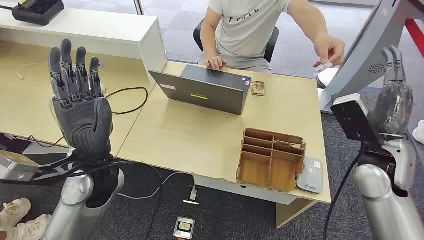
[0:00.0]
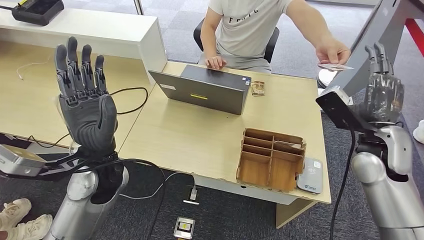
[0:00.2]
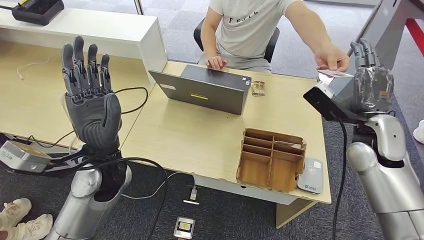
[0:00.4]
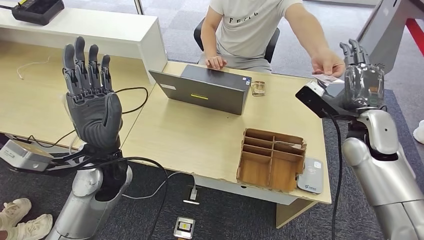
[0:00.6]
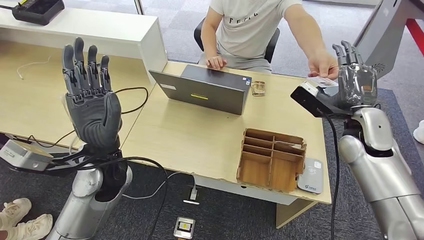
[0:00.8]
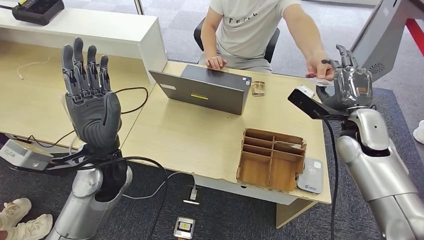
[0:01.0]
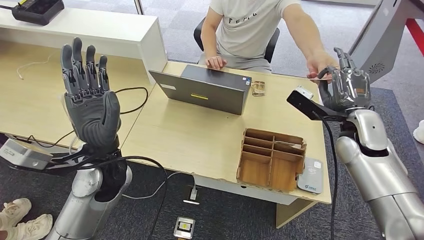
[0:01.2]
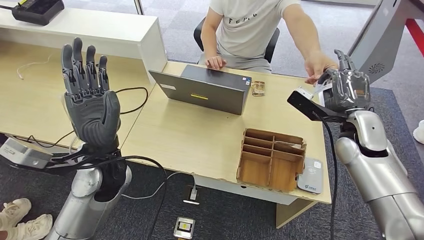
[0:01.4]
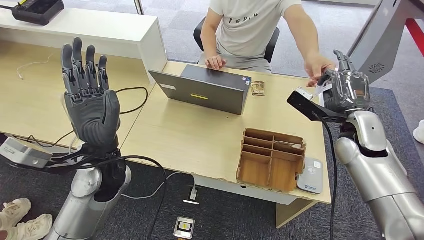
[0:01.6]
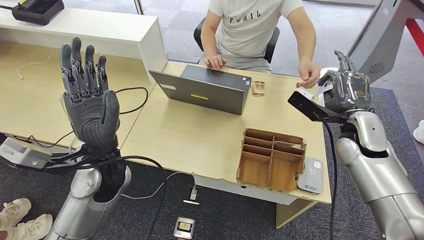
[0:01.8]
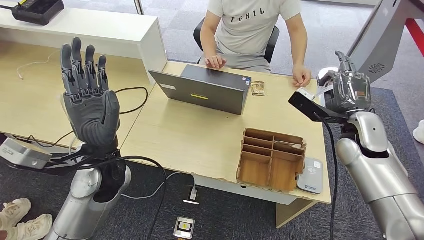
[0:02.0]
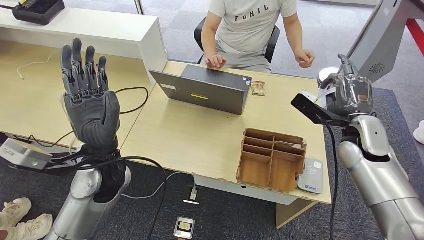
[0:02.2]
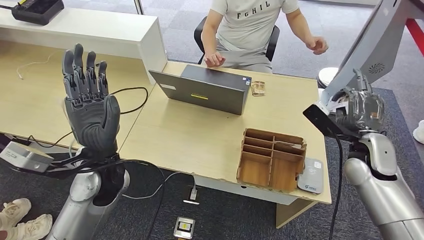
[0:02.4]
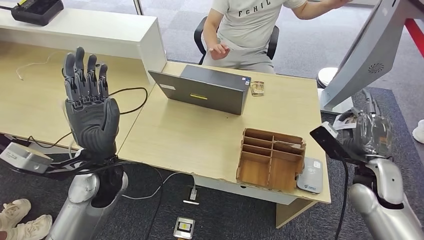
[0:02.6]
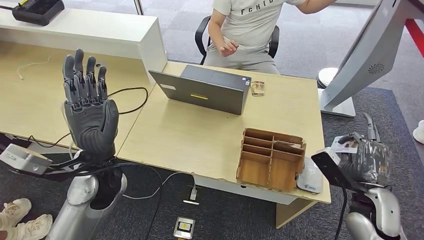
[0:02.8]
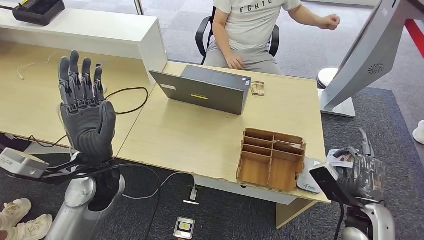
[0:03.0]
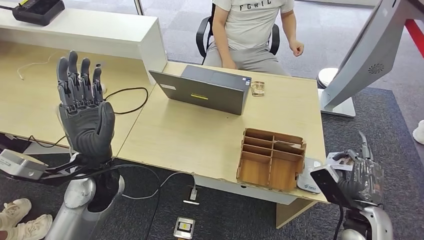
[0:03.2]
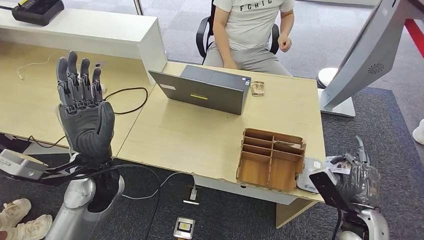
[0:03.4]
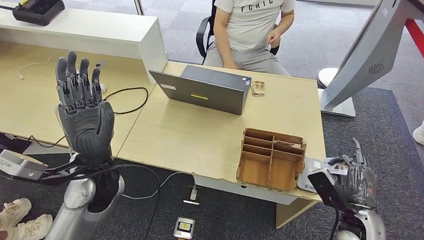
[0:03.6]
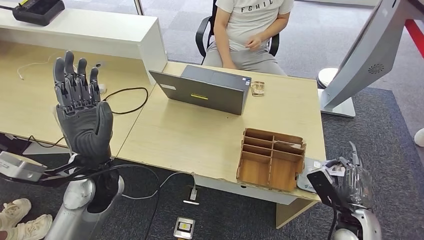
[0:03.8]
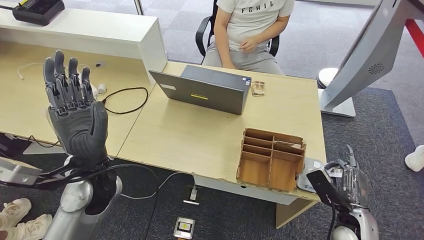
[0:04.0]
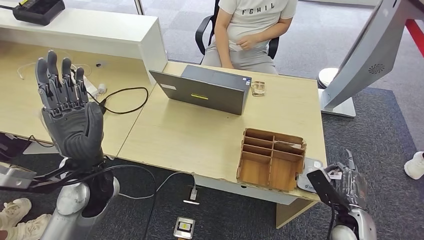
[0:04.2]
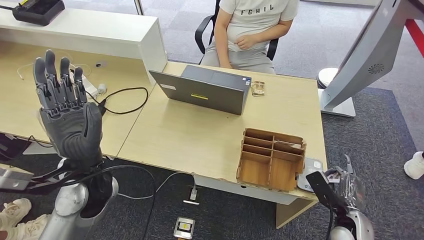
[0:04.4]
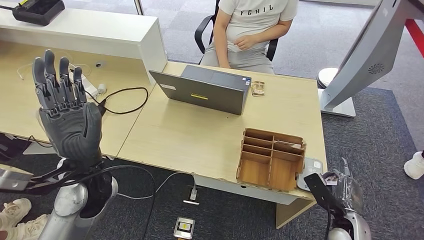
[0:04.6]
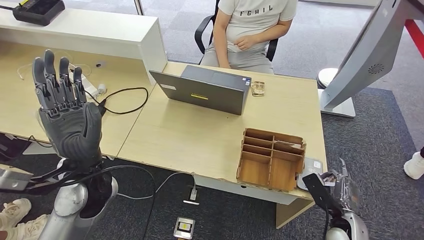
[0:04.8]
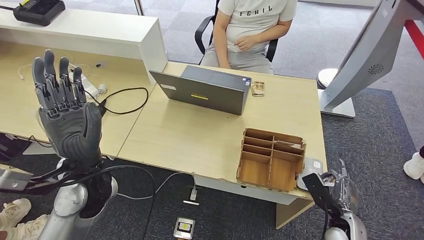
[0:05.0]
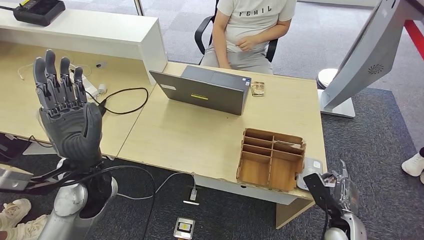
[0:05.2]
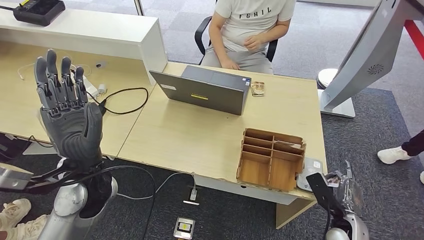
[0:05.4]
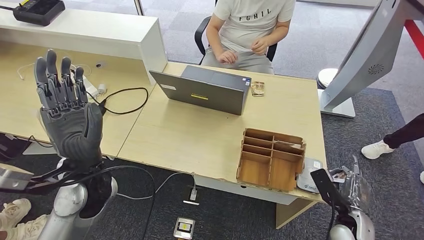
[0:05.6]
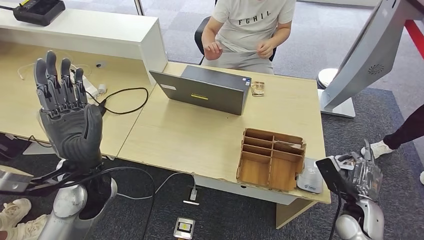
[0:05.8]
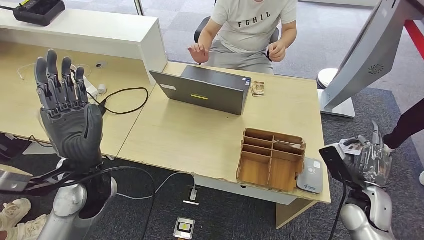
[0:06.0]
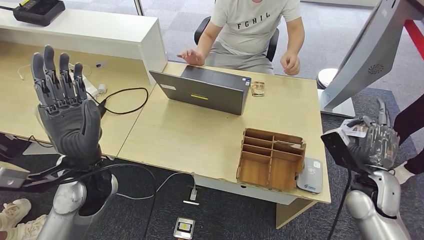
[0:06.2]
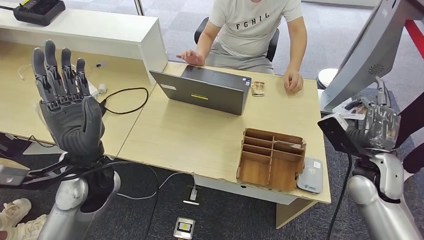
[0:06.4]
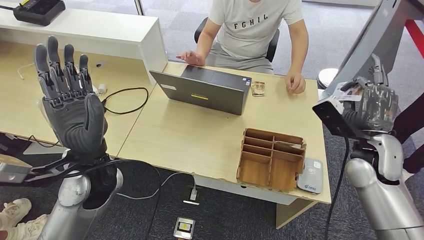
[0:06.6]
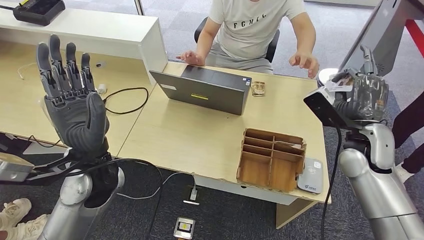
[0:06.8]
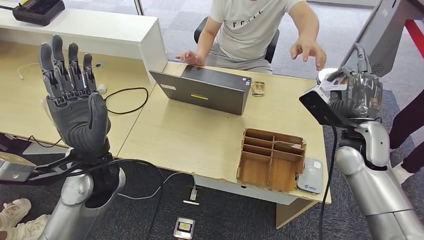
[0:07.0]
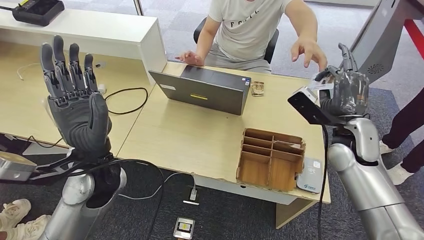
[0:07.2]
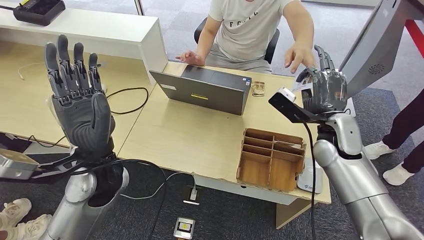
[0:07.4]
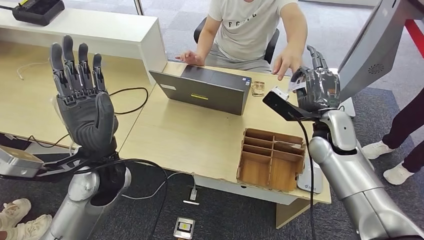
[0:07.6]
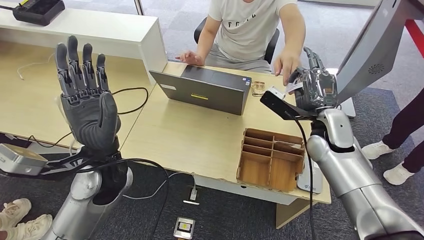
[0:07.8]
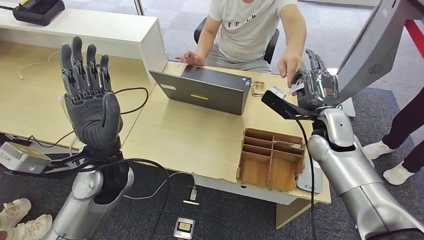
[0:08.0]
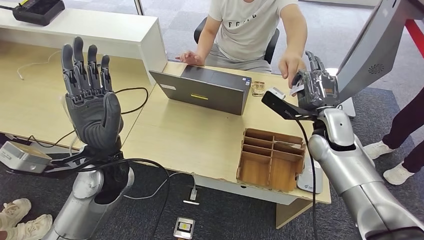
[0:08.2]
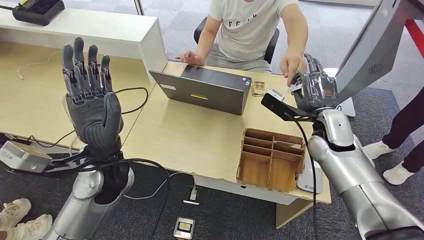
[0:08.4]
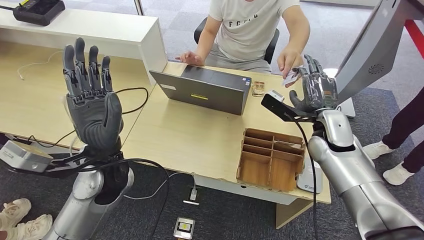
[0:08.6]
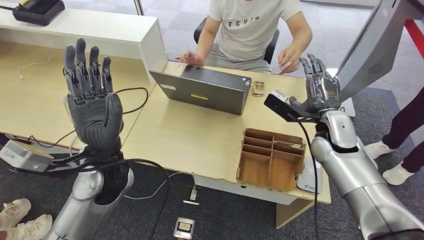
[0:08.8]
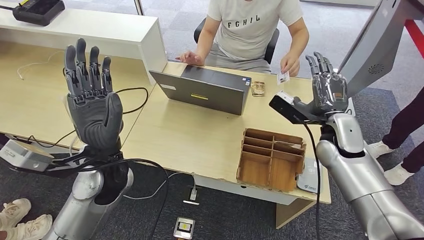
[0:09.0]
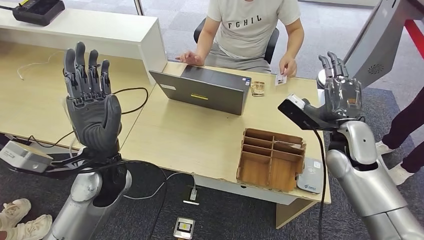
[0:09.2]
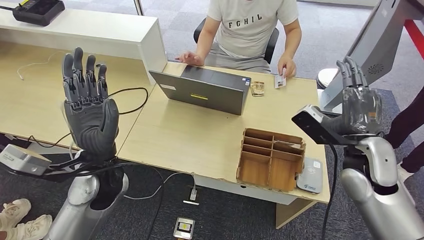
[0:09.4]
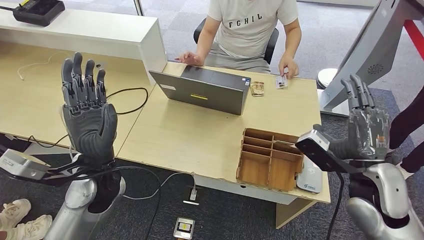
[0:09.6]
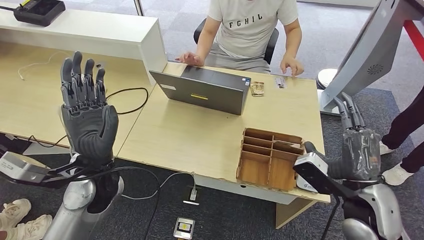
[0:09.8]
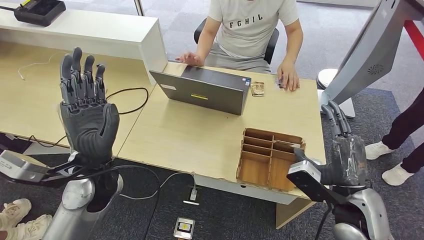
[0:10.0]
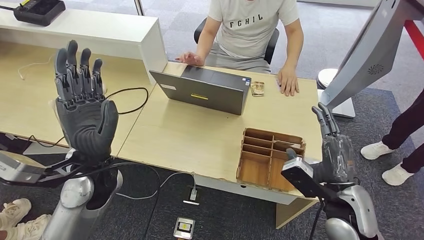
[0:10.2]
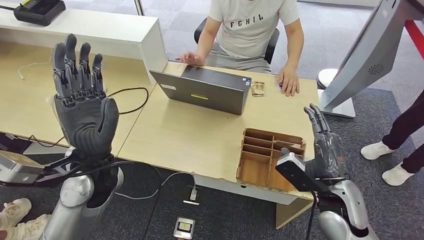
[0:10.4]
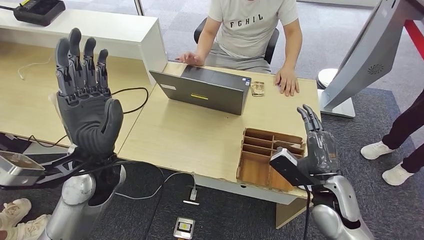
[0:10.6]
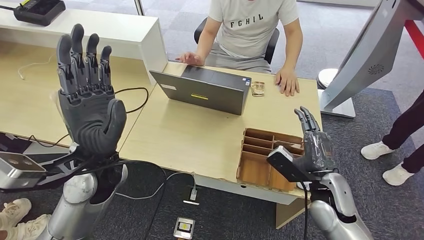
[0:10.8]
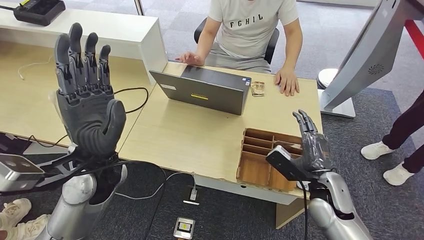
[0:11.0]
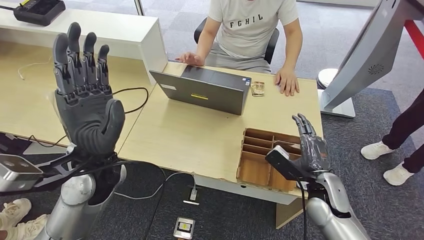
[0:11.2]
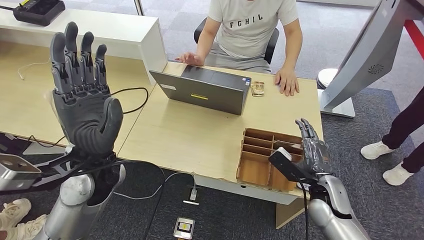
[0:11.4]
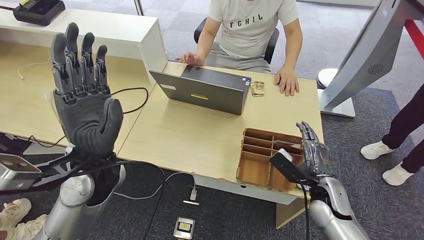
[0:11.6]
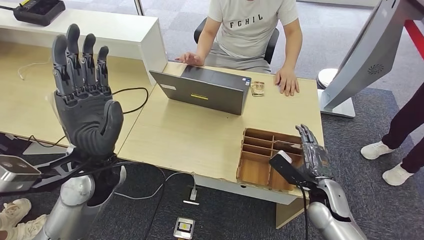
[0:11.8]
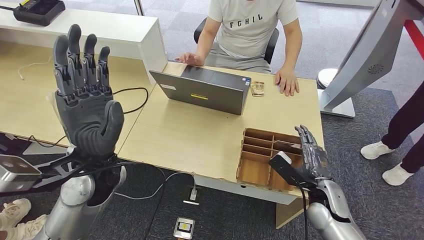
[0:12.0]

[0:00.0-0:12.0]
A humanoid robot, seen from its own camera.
Step, 0:00.0 to 0:02.8: Take the ID card from the person's hand.
Step, 0:03.0 to 0:06.0: Place the ID card on the card reader.
Step, 0:06.2 to 0:09.4: Hand the ID card to the person.
0:03.0 to 0:04.4: The right hand goes about 10 cm downward.
0:04.4 to 0:06.0: The right hand is displaced upward by some 10 cm.
0:07.6 to 0:09.0: The hands stay close to where they were, moving slightly.
0:10.4 to 0:12.0: The right hand heads downward, covering about 10 cm.

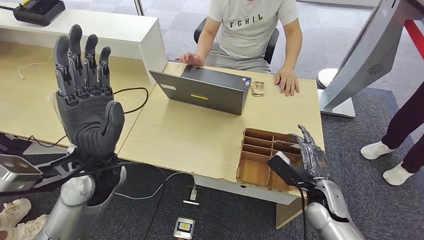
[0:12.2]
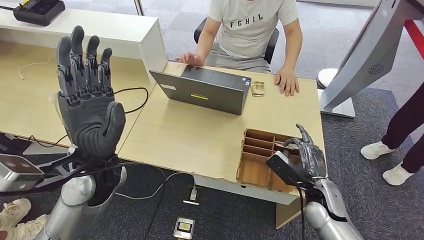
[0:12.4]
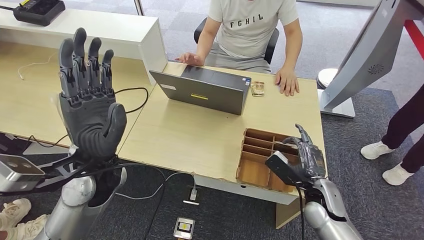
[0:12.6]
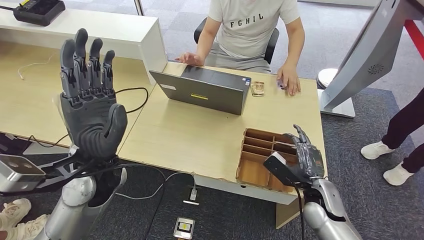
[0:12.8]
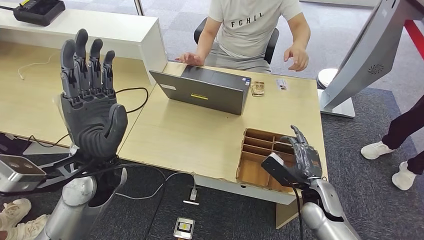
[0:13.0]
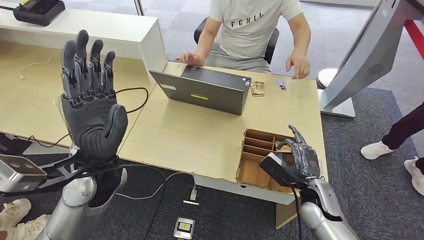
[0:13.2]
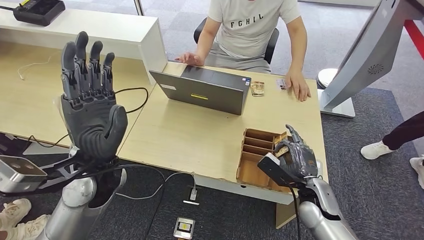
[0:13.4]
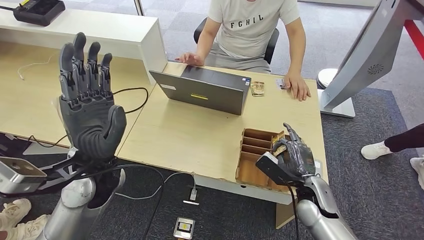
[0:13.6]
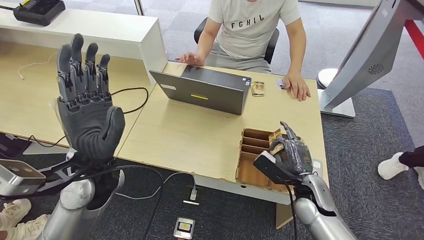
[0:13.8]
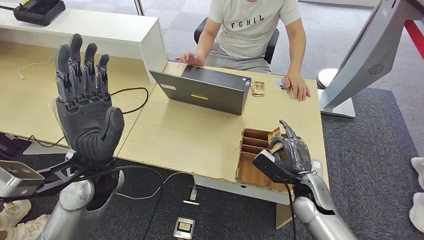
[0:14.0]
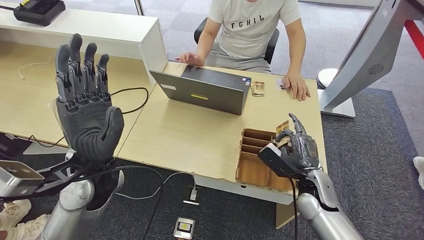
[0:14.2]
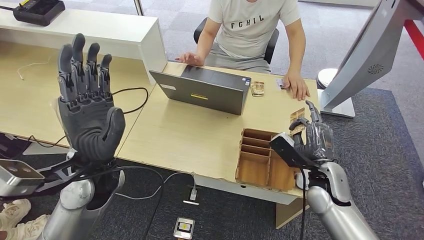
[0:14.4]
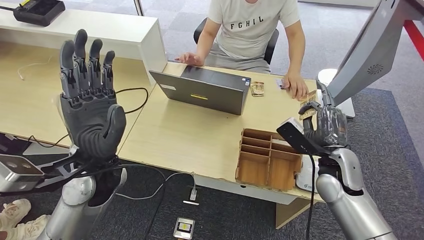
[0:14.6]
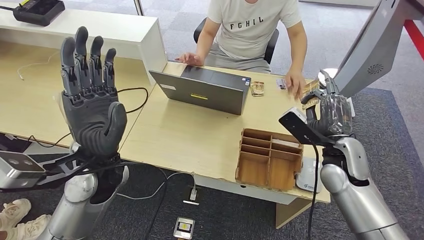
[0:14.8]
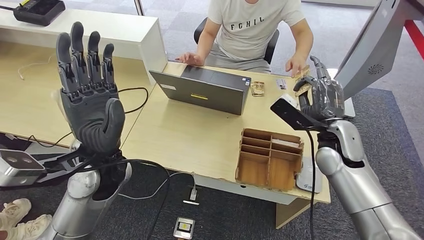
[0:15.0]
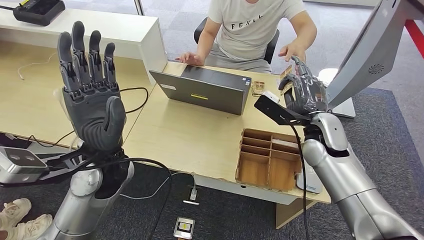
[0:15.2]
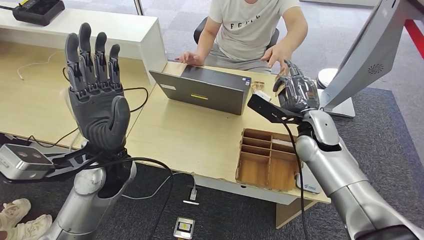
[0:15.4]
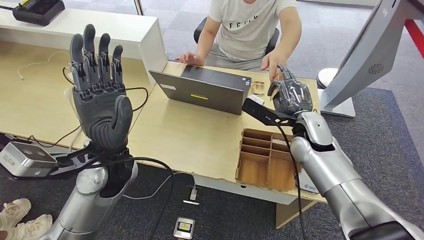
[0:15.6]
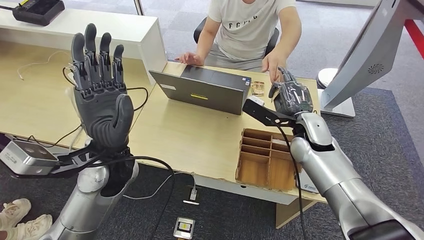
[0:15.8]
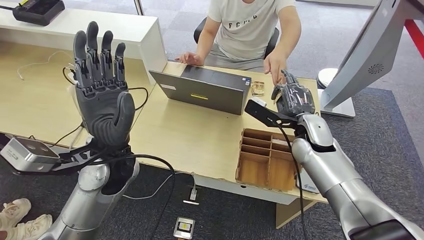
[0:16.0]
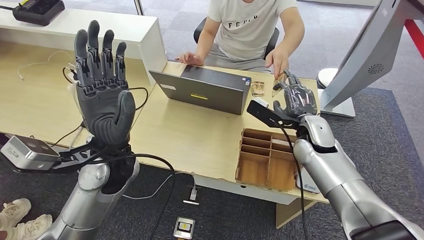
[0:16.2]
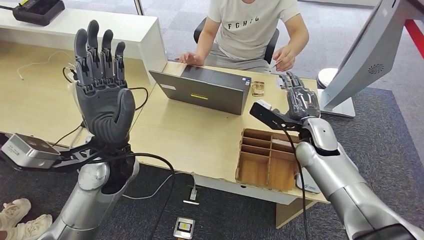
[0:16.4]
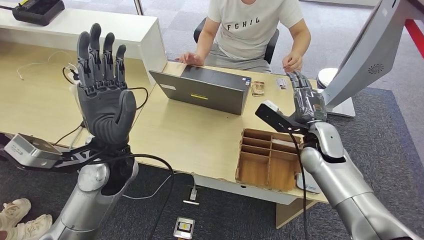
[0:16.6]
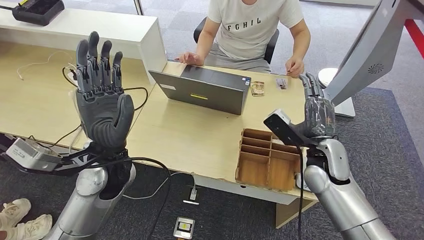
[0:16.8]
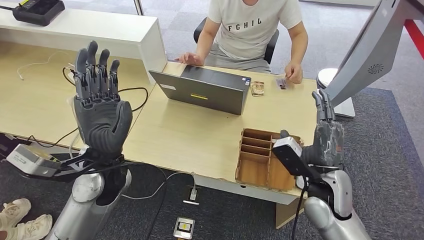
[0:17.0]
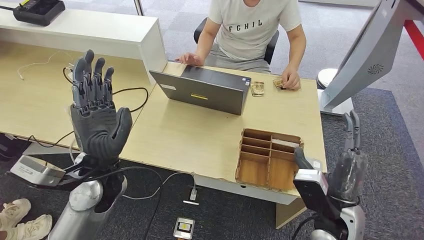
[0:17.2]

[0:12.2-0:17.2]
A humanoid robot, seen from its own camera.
Step, 0:12.2 to 0:15.0: Pick up the room key from the key card box.
Step, 0:15.4 to 0:17.2: Hand the room key to the person.
0:12.2 to 0:13.8: There are only small adjustments of the hands.
0:15.6 to 0:17.2: The right hand shifts approximately 20 cm backward.
